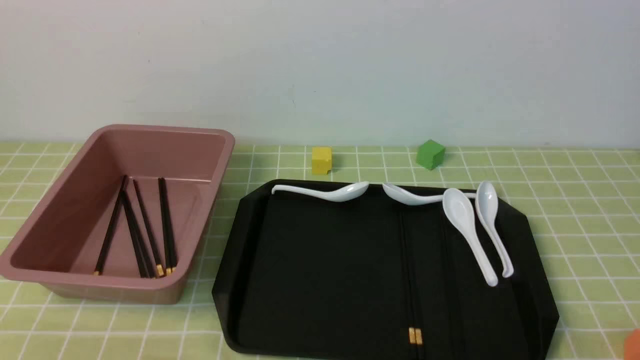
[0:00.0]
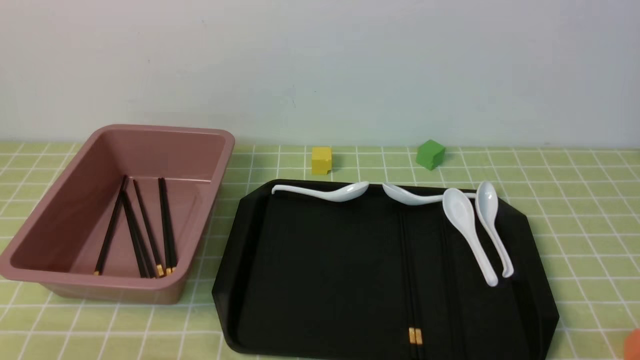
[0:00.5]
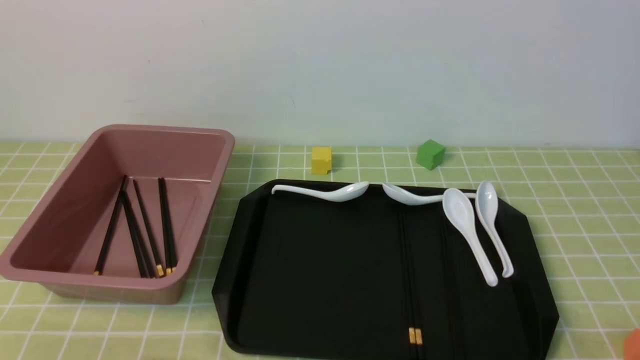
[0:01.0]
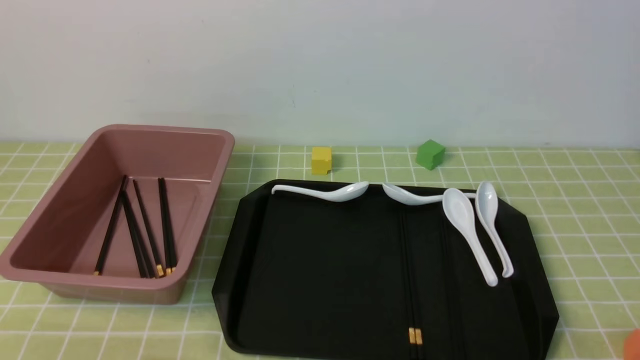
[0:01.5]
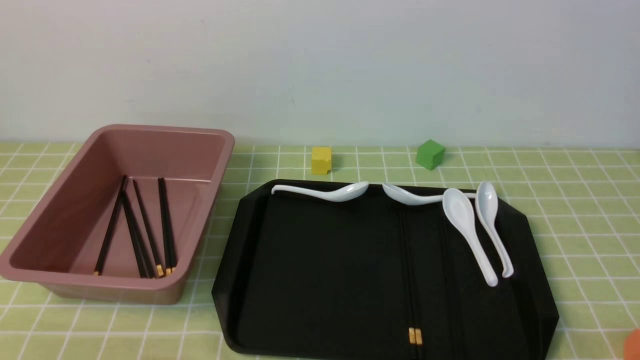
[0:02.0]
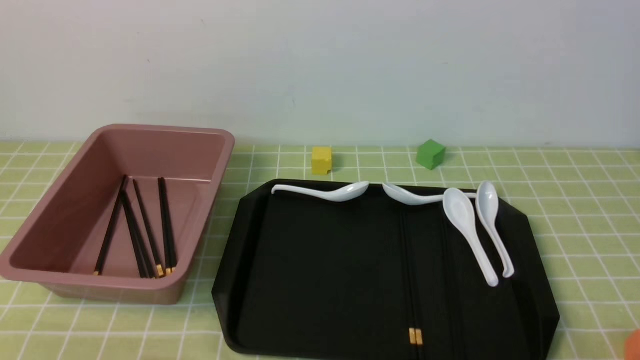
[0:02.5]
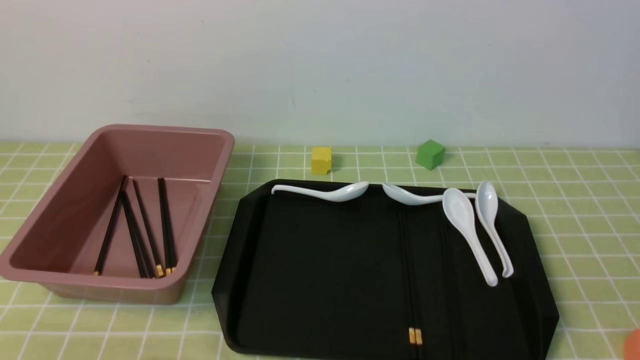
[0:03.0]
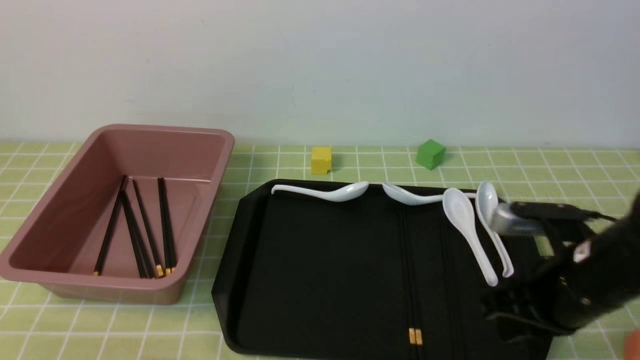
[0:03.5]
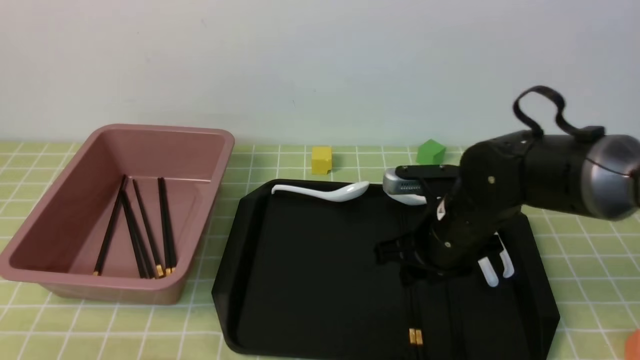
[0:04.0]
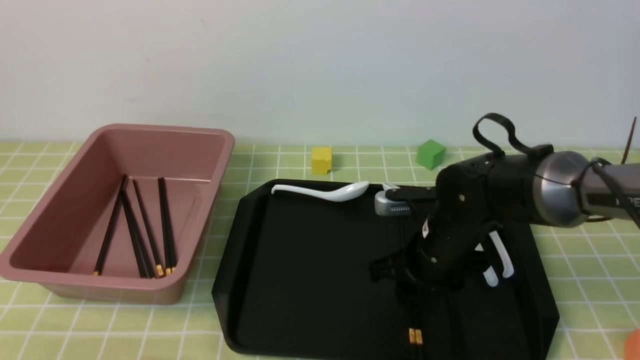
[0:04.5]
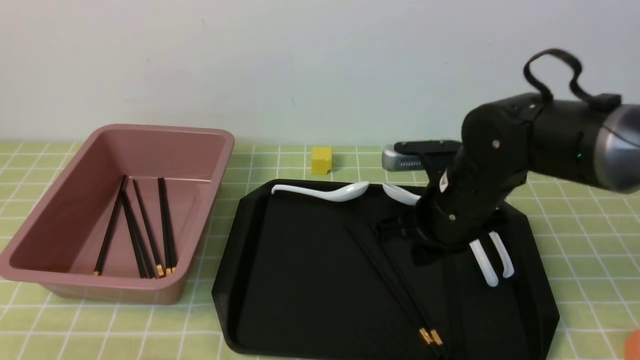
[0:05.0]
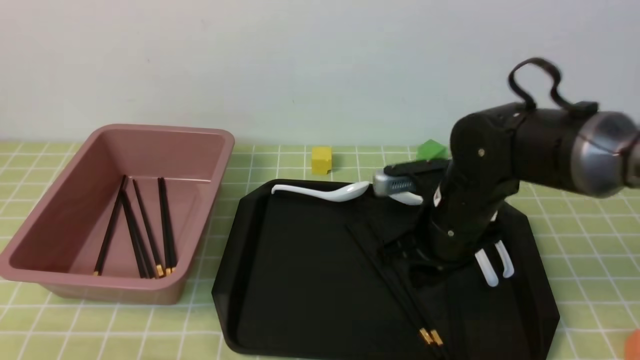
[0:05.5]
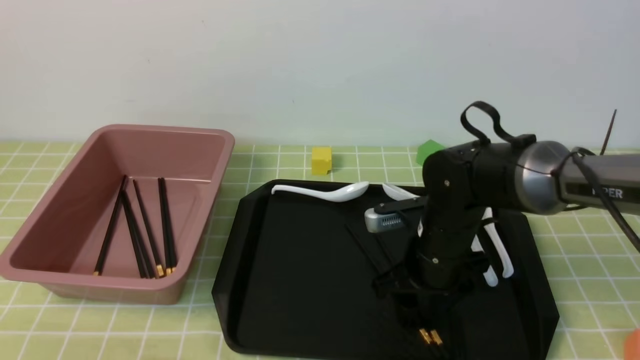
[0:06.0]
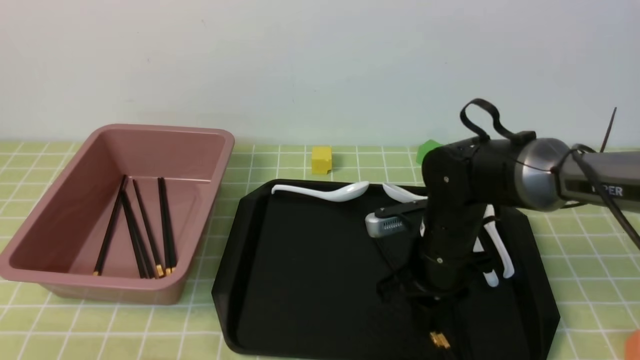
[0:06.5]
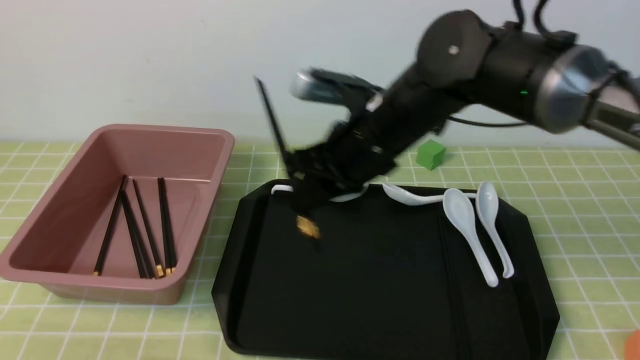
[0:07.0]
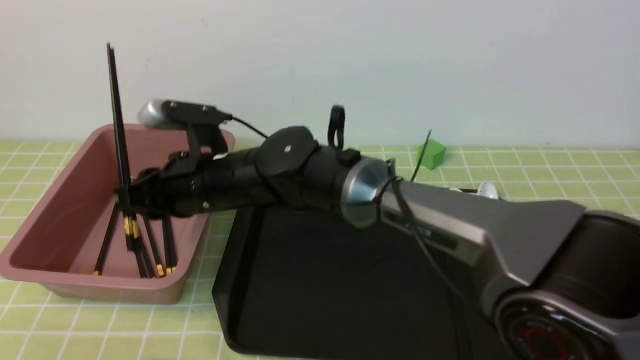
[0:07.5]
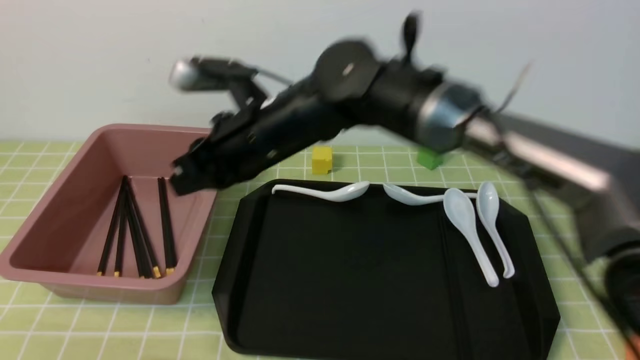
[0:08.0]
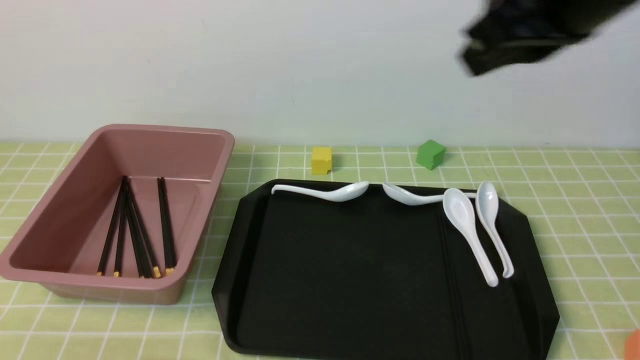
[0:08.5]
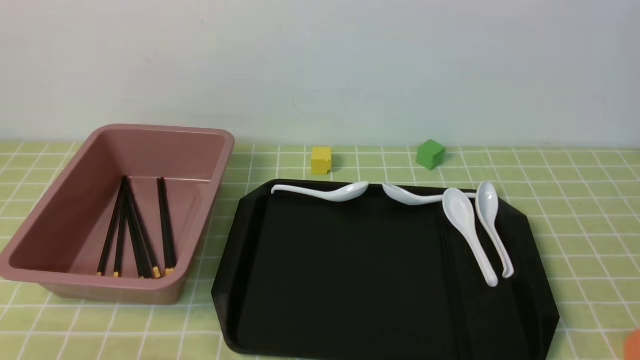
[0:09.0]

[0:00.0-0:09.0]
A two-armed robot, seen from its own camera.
Step, 0:00.0 to 0:06.5: use the right arm to grab a pair of chopsticks.
Step, 0:07.0 to 0:08.0: use the right arm to put the chopsticks into the lunch box.
0:02.0 to 0:04.5: The right gripper shifts roughly 35 cm forward and to the left, and closes, then reopens.
0:04.5 to 0:07.0: The right gripper goes up and down, roughly 15 cm each way, reversing 2 times, and closes, then reopens.
0:07.0 to 0:09.0: The right gripper travels backward and to the right by roughly 35 cm.

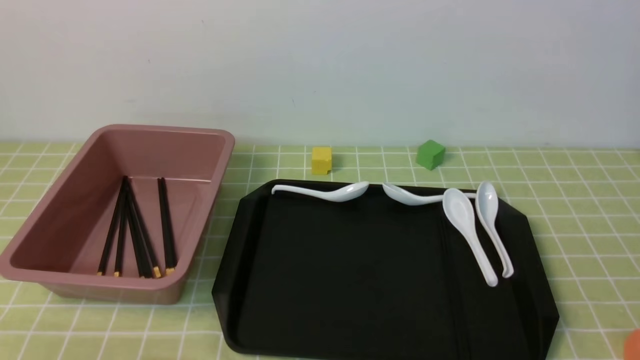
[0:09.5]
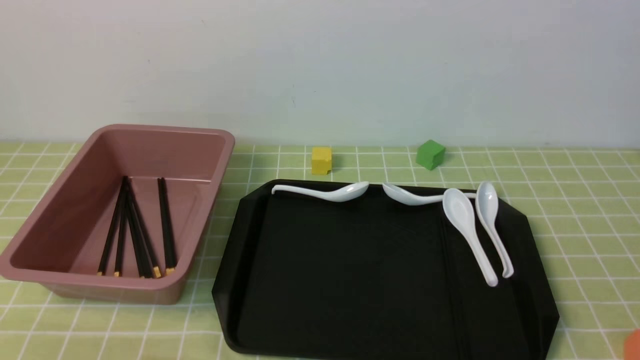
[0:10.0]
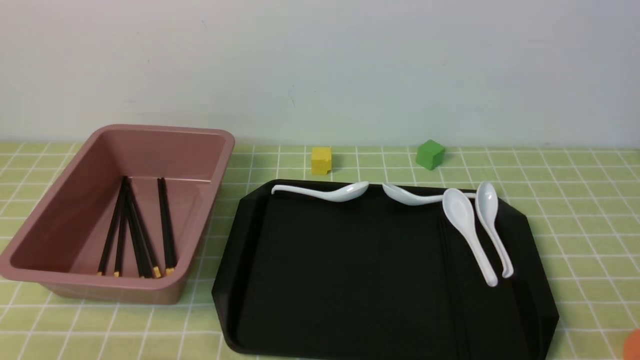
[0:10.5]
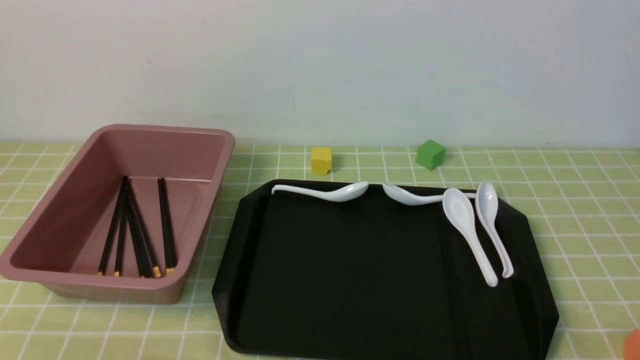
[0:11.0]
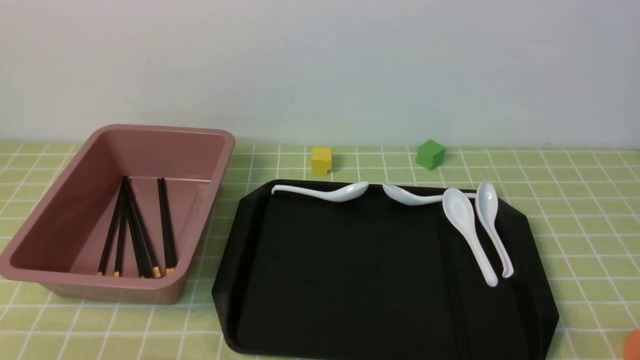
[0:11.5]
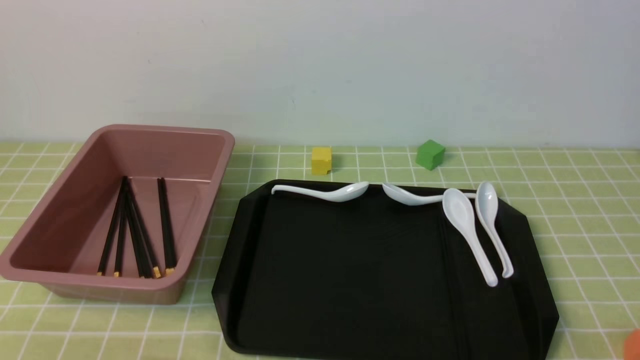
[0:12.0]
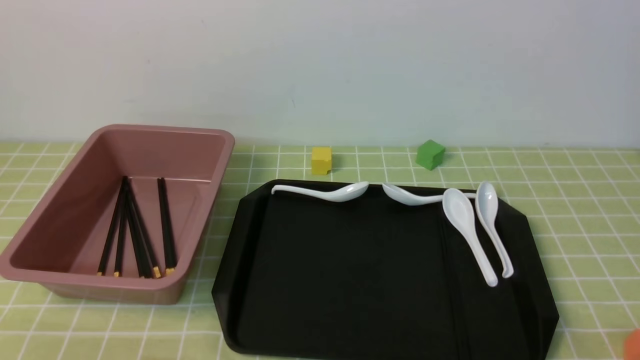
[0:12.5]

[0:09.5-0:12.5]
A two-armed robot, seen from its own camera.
0:11.0 to 0:12.5: The two grippers keep their place.
